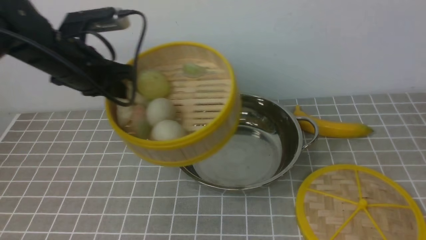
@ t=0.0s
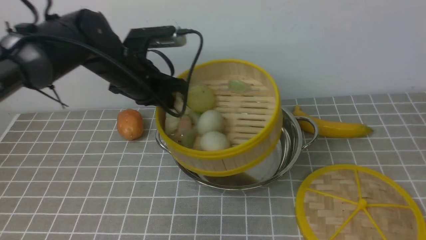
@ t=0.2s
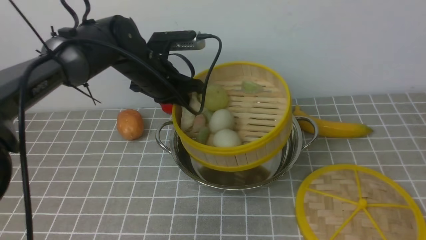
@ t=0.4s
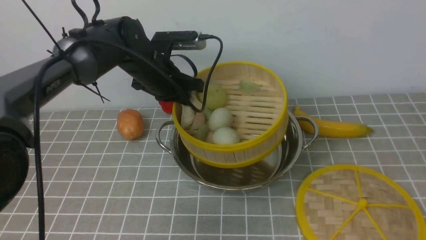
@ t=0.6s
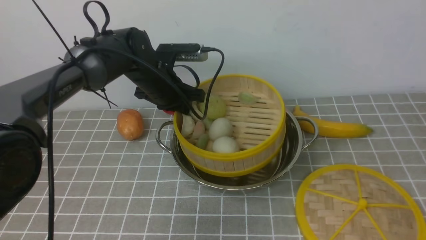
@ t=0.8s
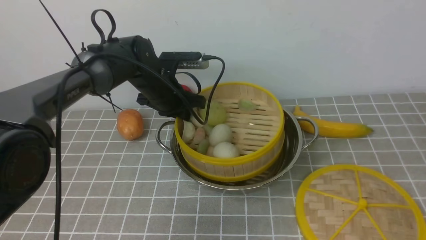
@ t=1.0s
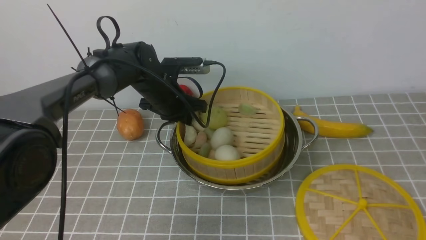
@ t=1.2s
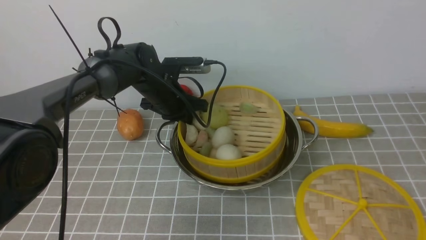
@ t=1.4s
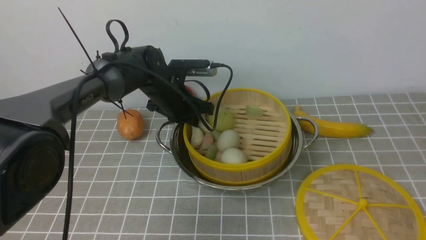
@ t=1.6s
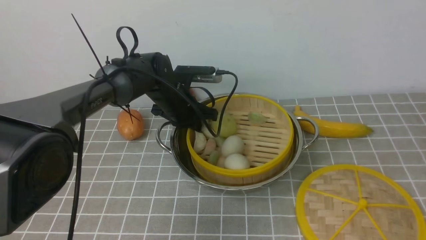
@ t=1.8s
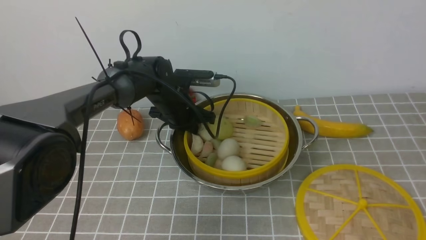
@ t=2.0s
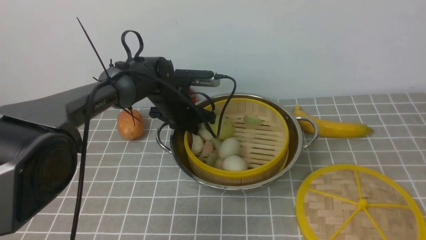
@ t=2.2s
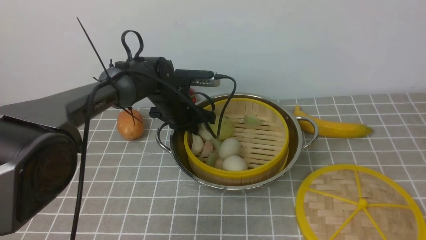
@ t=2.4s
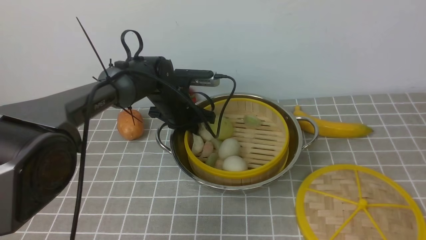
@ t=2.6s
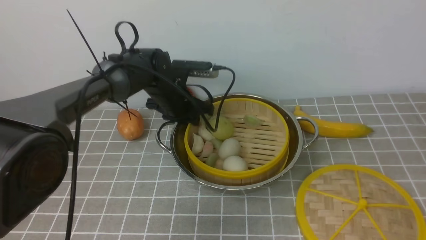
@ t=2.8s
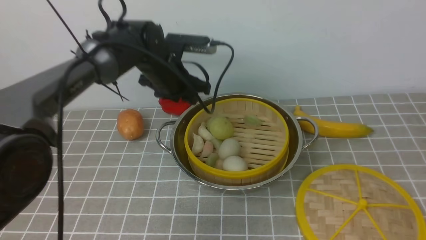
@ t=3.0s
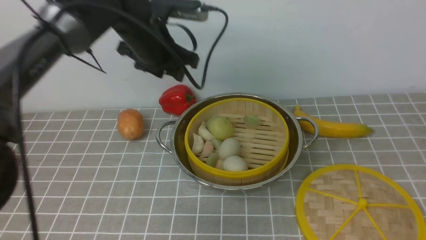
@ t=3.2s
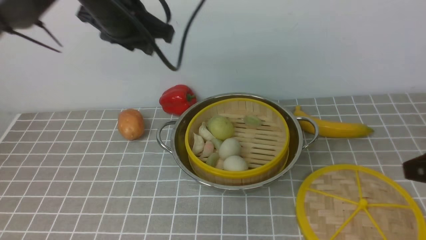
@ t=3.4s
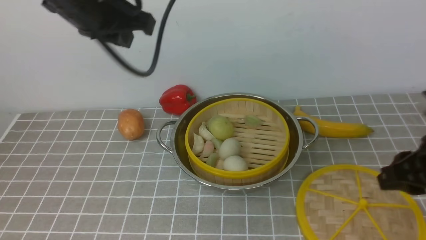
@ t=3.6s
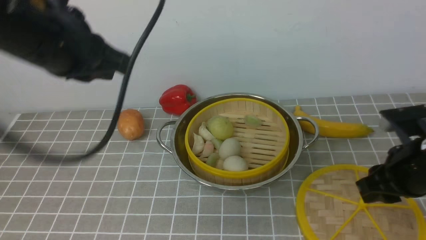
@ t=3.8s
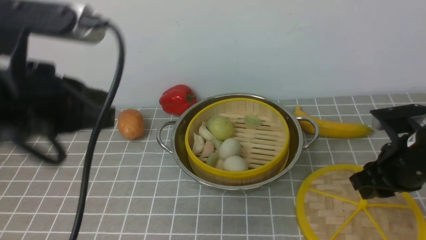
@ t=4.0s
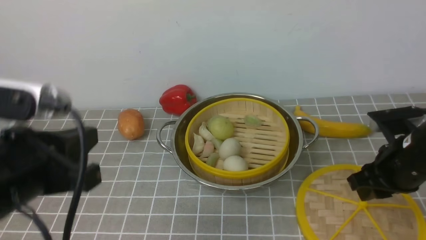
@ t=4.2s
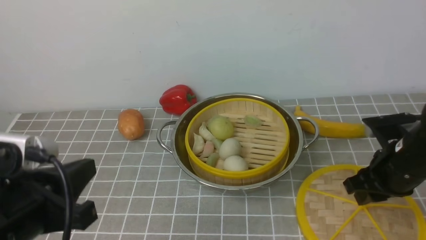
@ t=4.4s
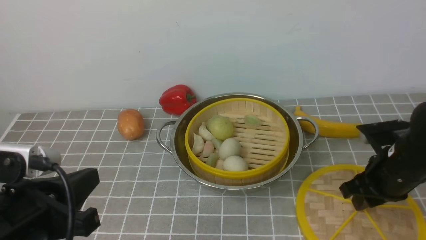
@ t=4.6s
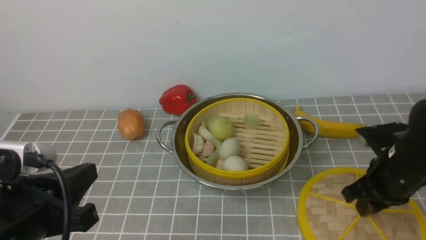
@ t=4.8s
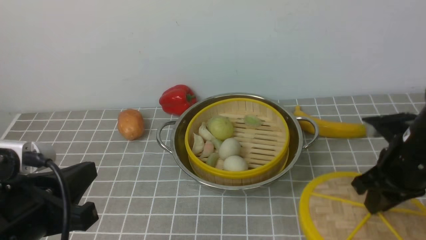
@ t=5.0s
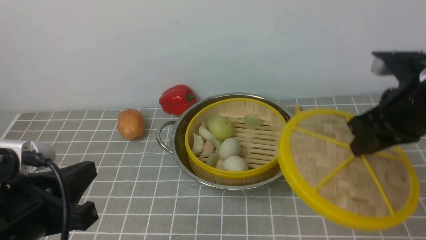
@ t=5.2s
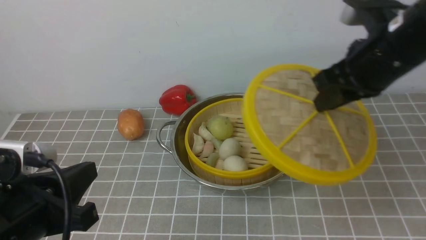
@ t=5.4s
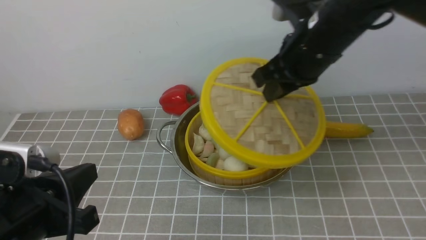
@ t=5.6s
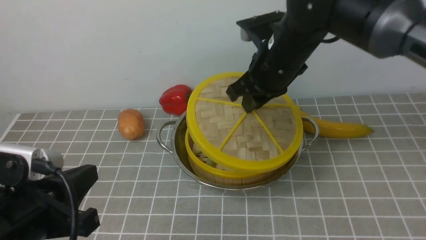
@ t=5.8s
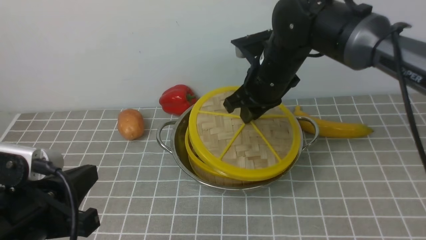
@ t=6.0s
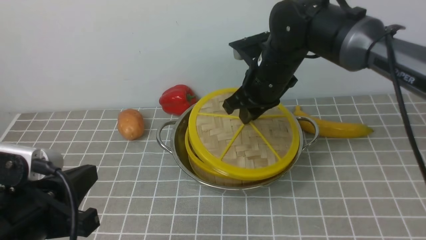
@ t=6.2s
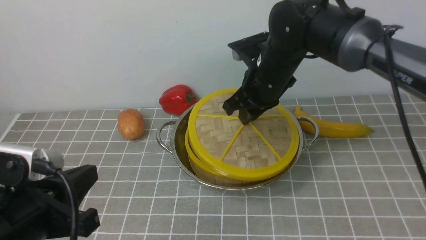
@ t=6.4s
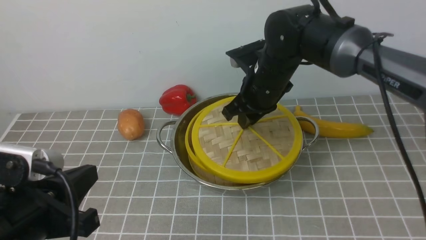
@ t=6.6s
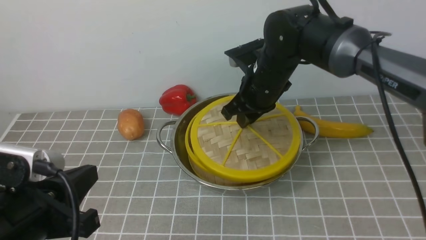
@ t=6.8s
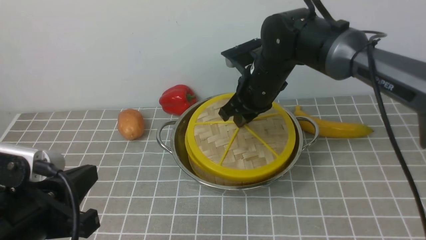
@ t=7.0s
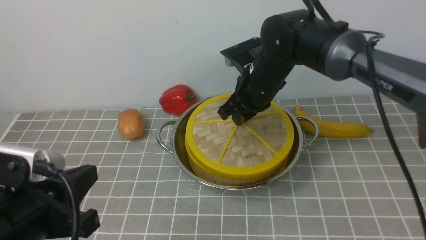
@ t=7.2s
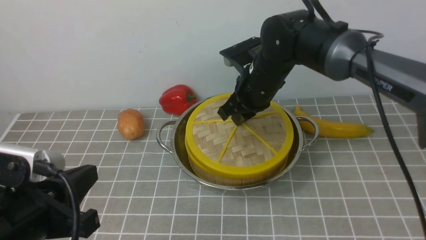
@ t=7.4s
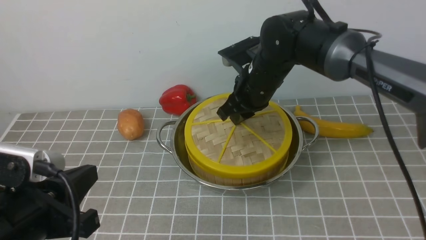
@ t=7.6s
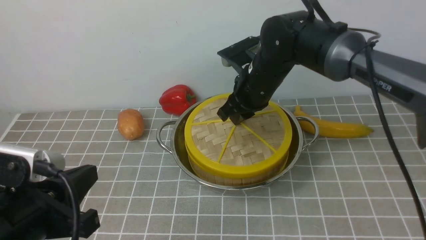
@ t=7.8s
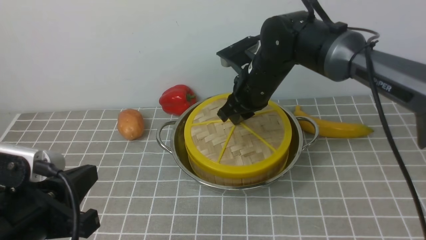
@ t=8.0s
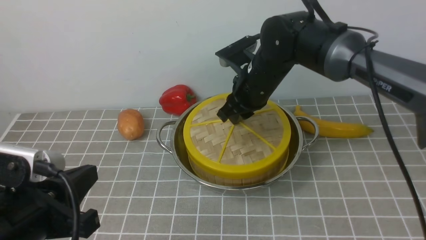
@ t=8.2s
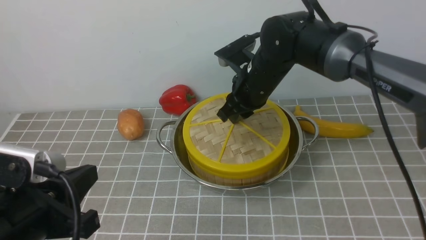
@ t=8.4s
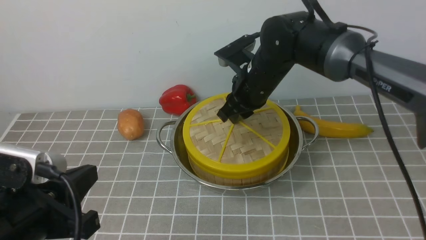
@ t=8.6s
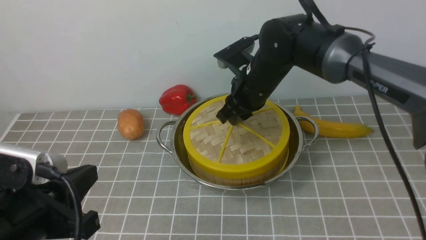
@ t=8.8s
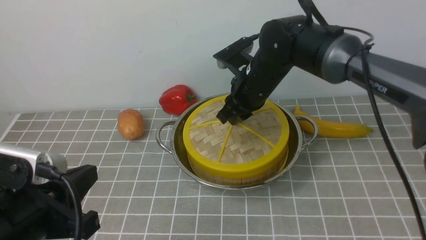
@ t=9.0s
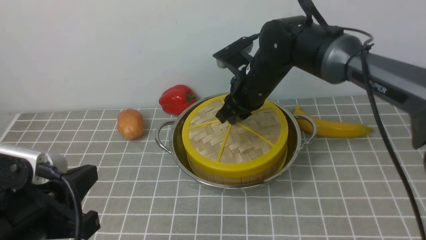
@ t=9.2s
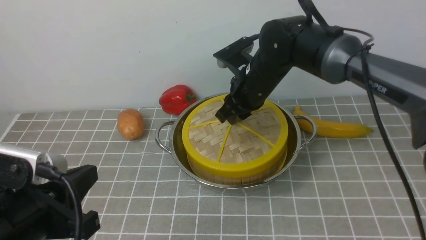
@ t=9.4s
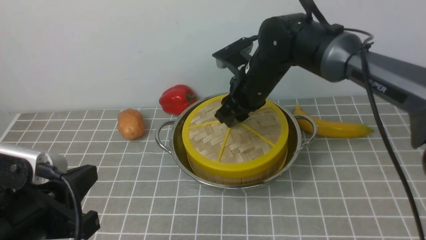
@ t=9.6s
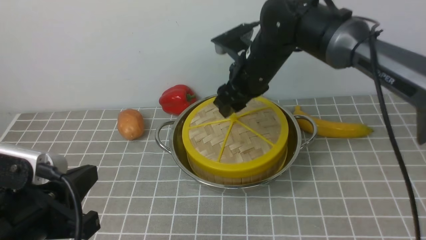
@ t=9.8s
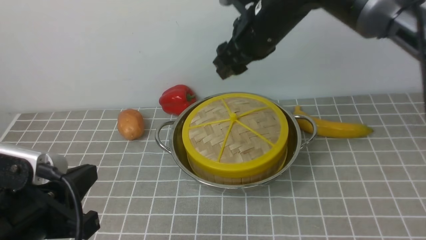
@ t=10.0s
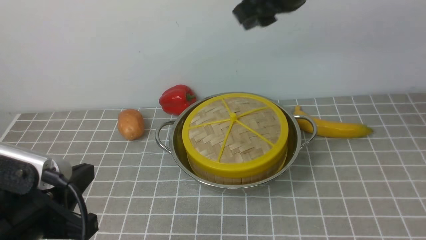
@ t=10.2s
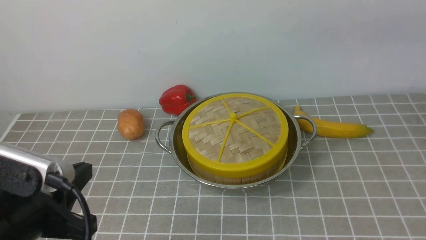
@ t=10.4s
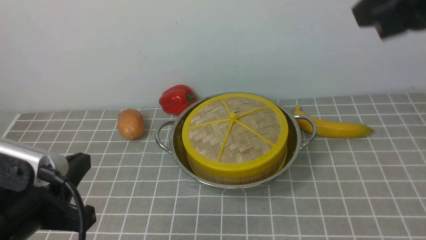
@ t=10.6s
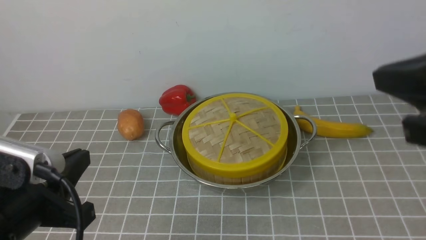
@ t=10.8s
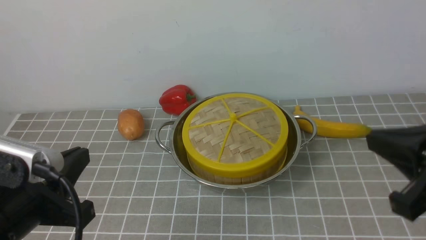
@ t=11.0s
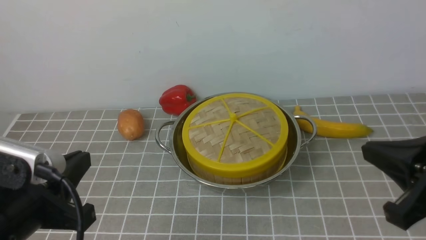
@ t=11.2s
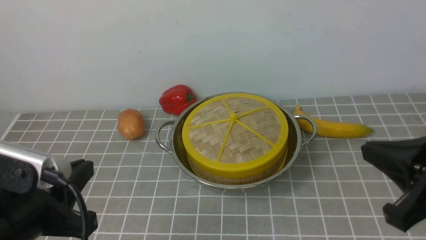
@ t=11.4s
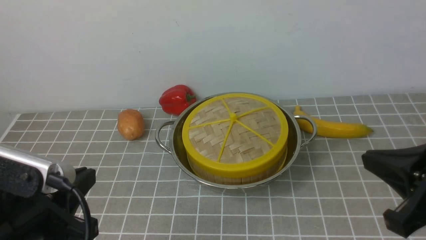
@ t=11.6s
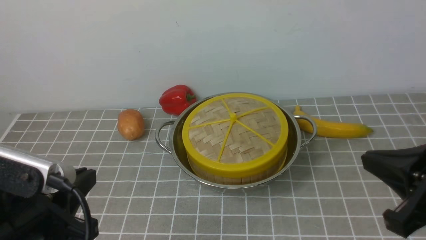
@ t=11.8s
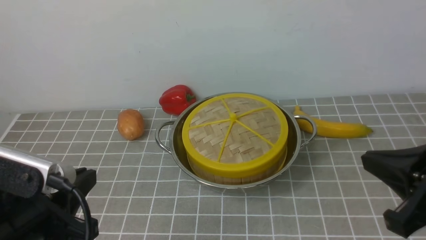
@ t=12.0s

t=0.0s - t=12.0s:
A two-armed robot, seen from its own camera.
Task of the whole recording: place the steamer in the pot on the grey tablecloth, and put the lid on the steamer.
Step, t=0.0s - t=2.8s: use the left arm to put the steamer into the iron steamer pot in the middle.
Step, t=3.0s - t=4.8s: use the right arm to lift the lid of the steamer.
Step, t=5.0s - t=9.8s: use the right arm to place the steamer lid on the steamer.
t=0.0s - t=1.6s: The left gripper moves downward, to the right and forward, approximately 15 cm.
t=1.6s - t=3.0s: The left gripper heads upward, covering about 10 cm, and opens.
t=3.0s - t=4.4s: The left gripper moves backward, about 30 cm, and closes up. Meanwhile the right gripper heads forward and downward, covering roughly 20 cm.
t=4.4s - t=6.0s: The right gripper is displaced to the left, forward and upward by some 20 cm.
t=6.0s - t=9.0s: There are only small adjustments of the grippers.
t=9.0s - t=10.4s: The right gripper heads upward, backward and to the right, covering approximately 30 cm, and opens and closes again.
t=10.4s - t=12.0s: The right gripper is displaced downward, backward and to the right by approximately 25 cm.

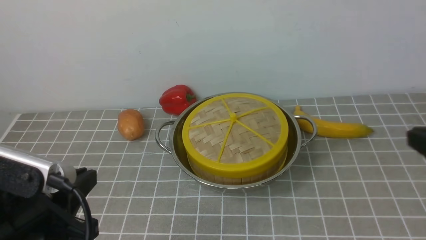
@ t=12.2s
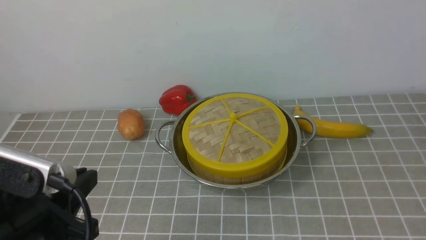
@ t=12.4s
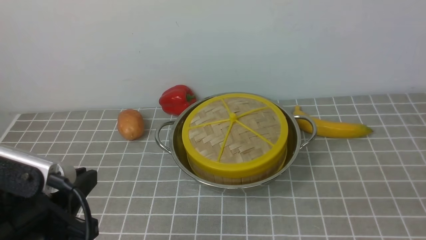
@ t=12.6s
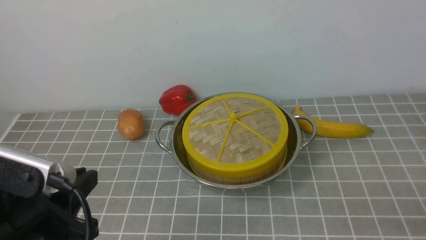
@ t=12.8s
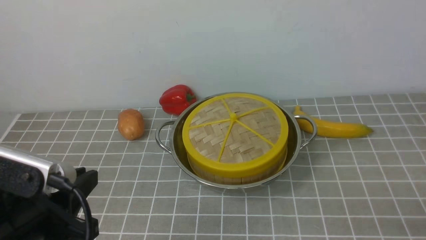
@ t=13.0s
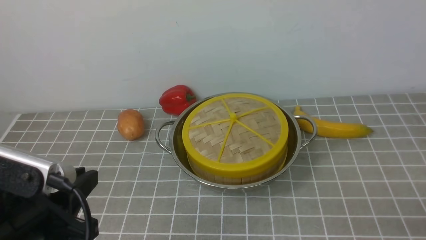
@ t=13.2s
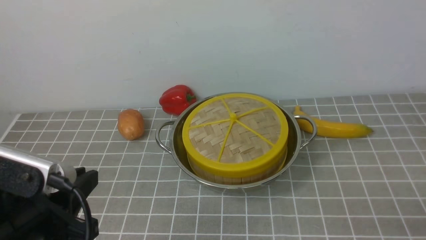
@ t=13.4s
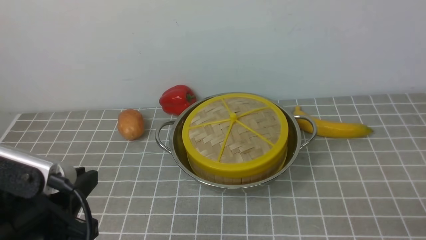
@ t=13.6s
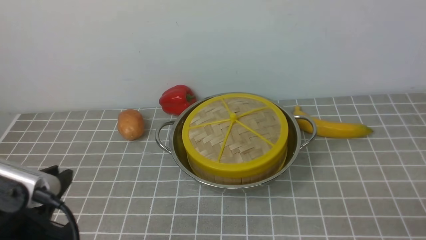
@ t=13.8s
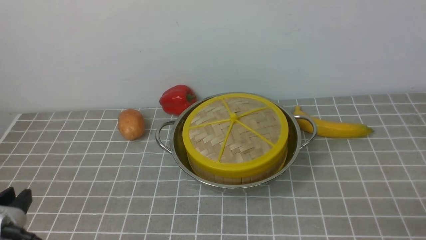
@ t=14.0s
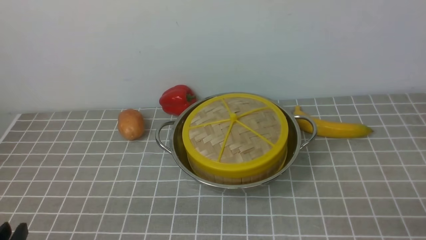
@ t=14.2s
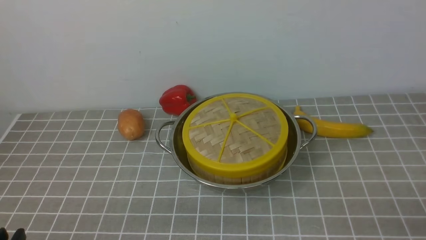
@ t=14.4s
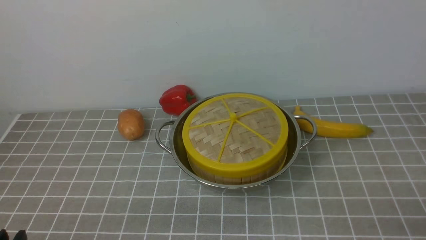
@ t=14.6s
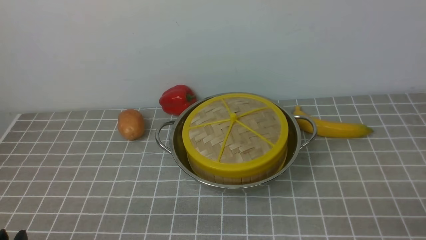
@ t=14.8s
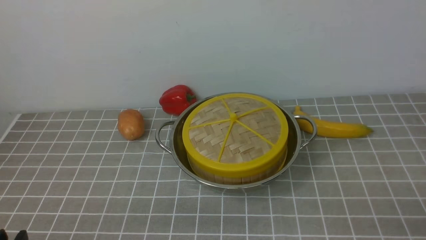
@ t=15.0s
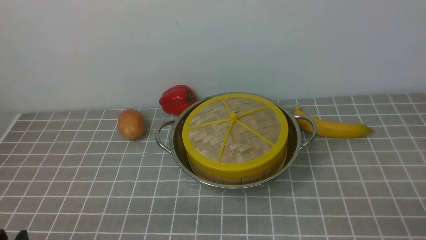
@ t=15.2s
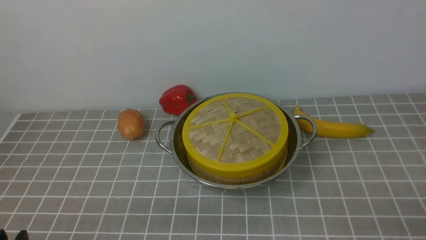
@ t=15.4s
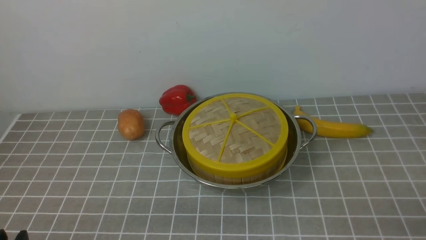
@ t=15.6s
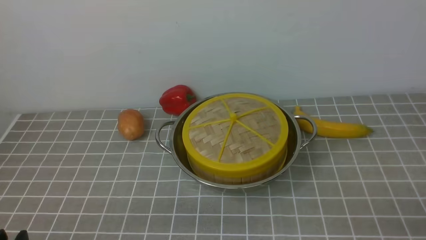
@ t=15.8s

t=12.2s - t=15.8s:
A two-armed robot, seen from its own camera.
Task of the whole recording: place the steamer in the pot on the grey tablecloth, and put the lid on the steamer.
t=12.2s - t=14.0s: The left gripper moves some 5 cm.
t=14.0s - t=15.8s: The left gripper heads downward, covering roughly 5 cm.
